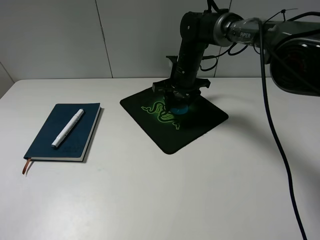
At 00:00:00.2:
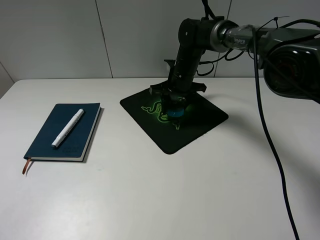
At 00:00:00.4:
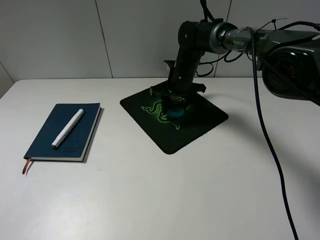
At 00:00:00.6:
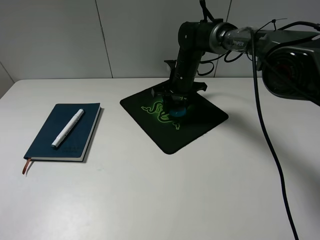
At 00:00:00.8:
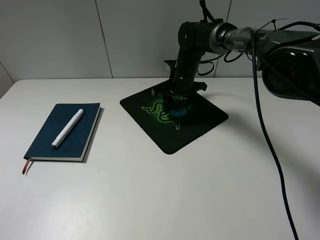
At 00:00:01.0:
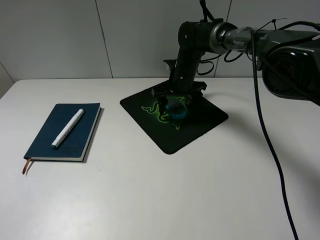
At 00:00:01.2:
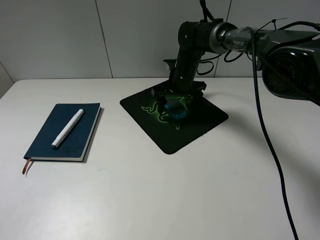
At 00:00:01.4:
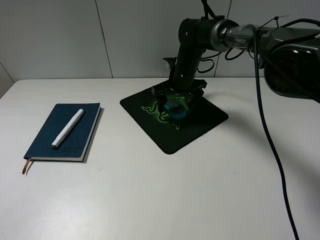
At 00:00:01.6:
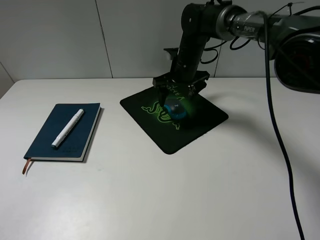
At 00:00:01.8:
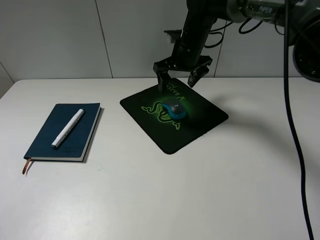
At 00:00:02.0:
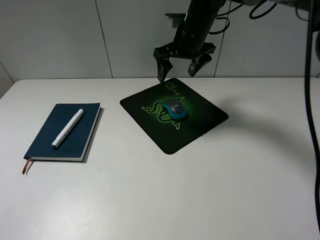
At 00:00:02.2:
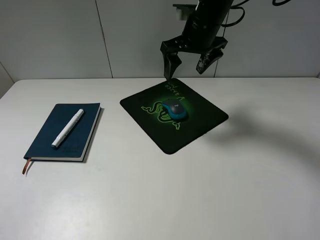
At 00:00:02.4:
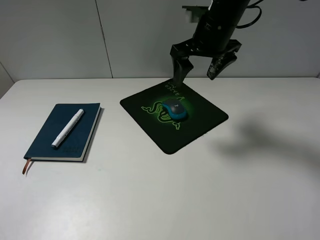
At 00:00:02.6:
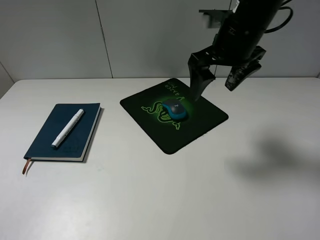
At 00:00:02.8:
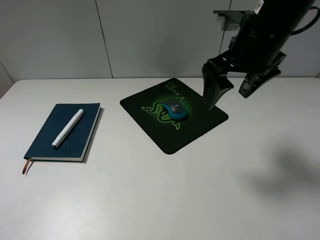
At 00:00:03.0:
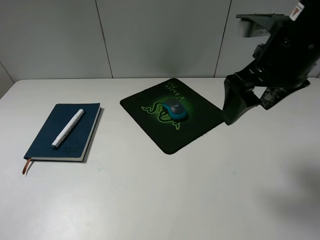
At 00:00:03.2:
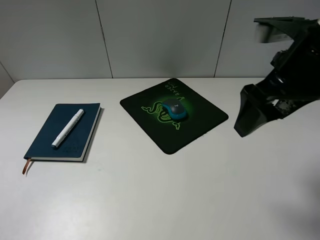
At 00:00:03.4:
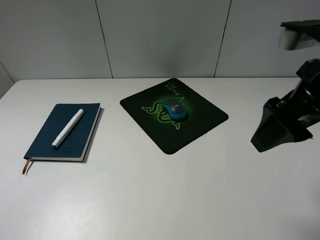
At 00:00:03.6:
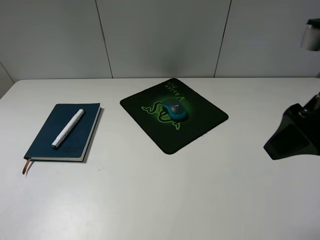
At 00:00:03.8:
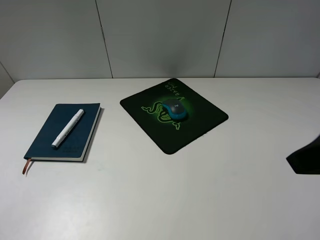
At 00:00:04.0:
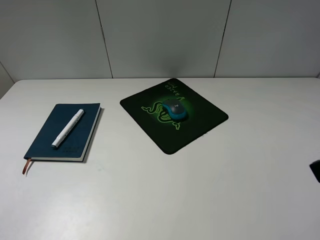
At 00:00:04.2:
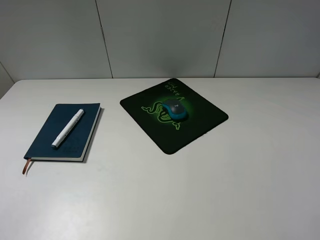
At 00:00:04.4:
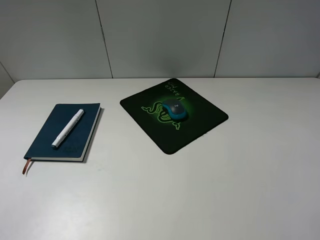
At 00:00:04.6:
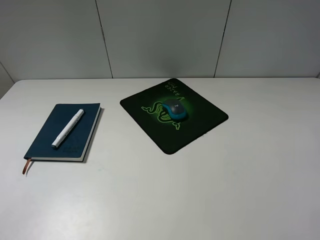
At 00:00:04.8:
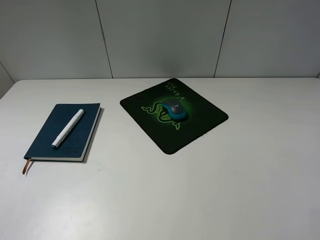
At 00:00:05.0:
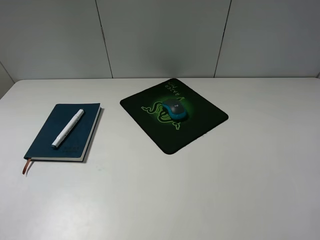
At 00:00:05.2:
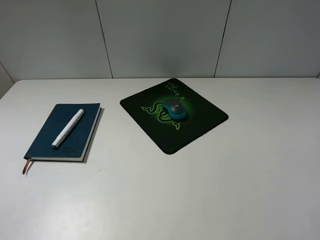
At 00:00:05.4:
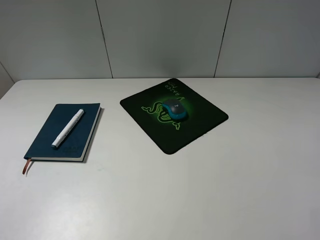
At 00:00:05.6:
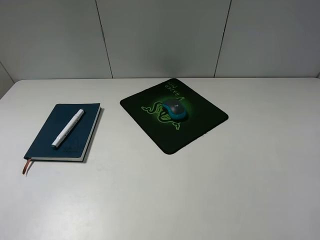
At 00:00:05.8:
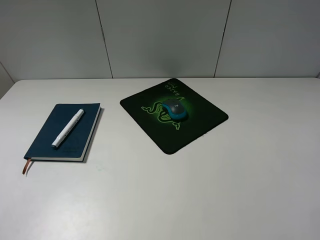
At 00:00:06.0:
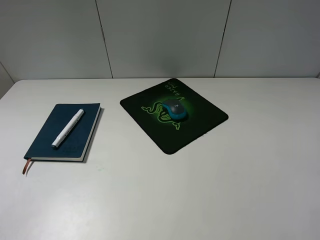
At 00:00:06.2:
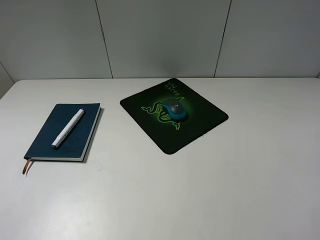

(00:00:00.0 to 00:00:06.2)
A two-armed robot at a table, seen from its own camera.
00:00:00.0 - 00:00:01.6: The right gripper opens.
00:00:01.6 - 00:00:03.2: The right gripper moves backward, upward and to the right, some 30 cm.
00:00:03.2 - 00:00:04.6: The right gripper travels backward and to the right by about 25 cm.
